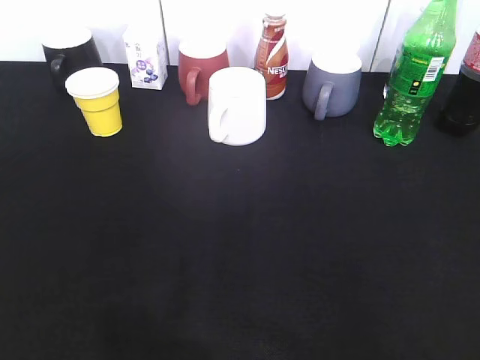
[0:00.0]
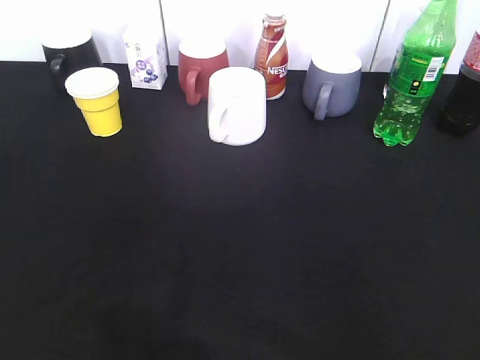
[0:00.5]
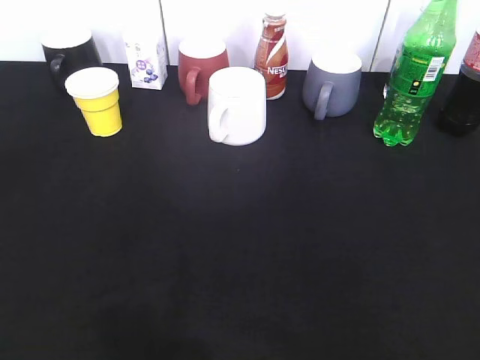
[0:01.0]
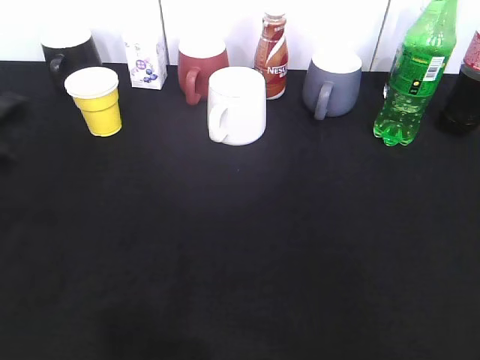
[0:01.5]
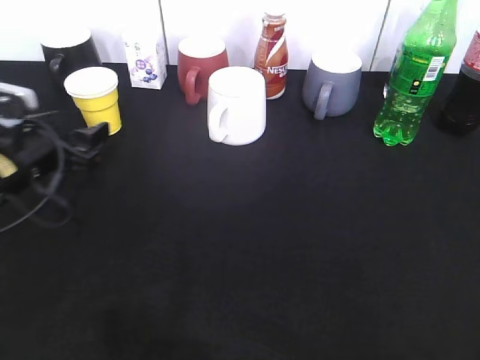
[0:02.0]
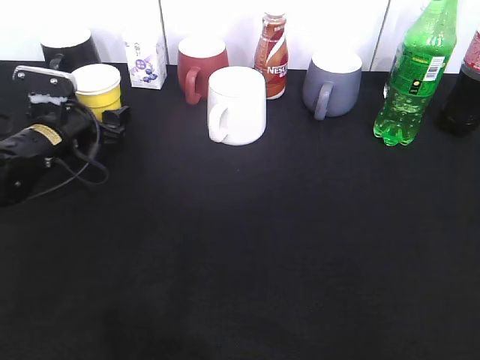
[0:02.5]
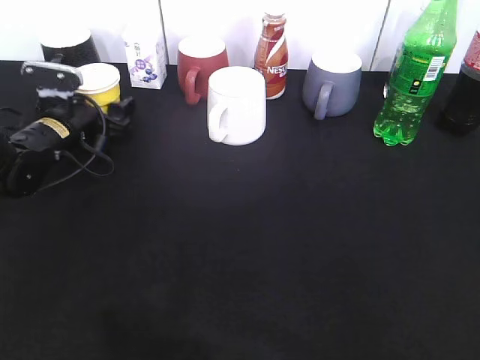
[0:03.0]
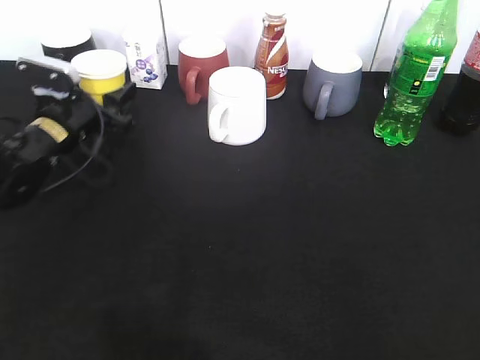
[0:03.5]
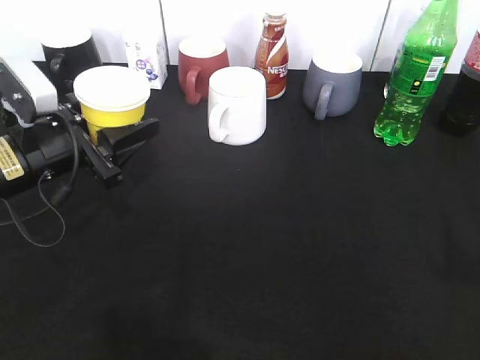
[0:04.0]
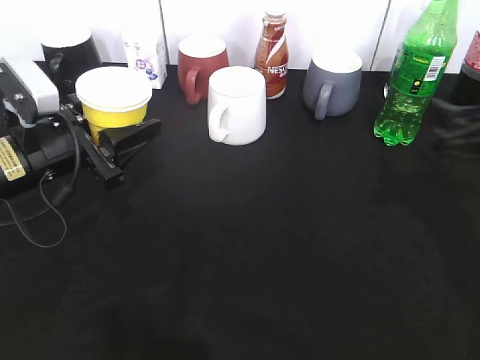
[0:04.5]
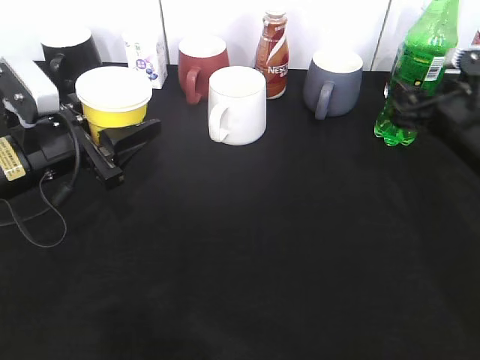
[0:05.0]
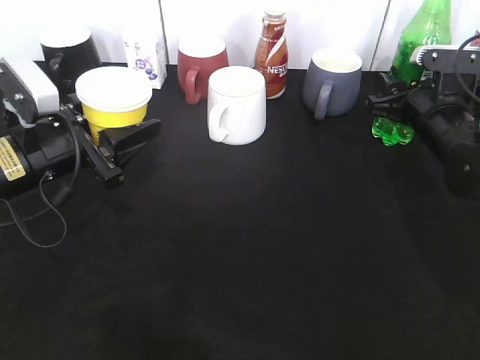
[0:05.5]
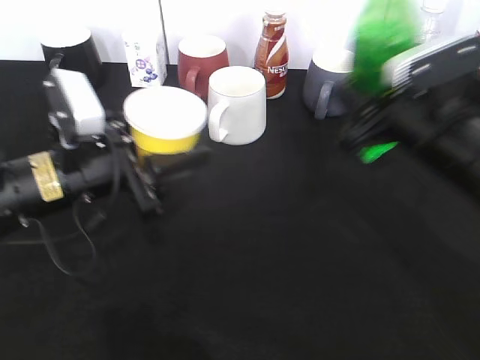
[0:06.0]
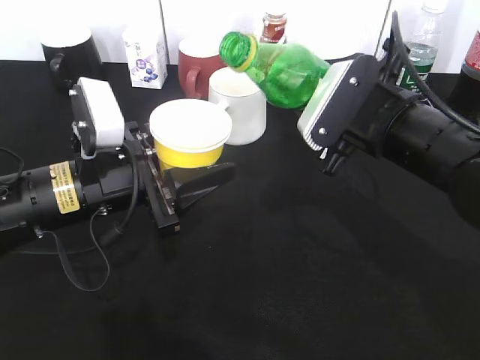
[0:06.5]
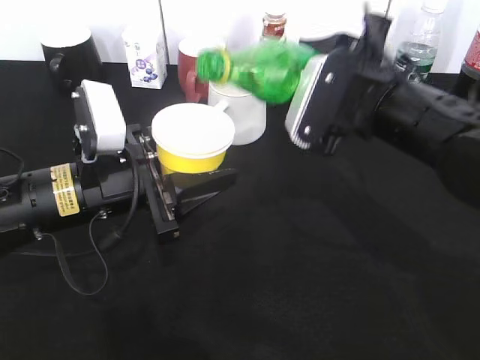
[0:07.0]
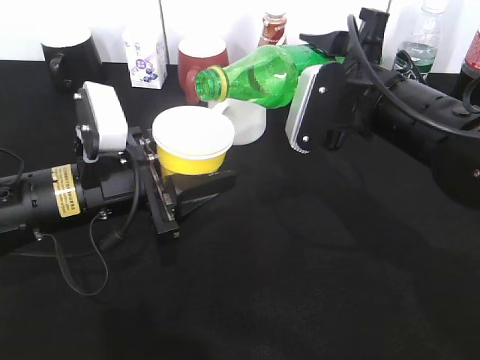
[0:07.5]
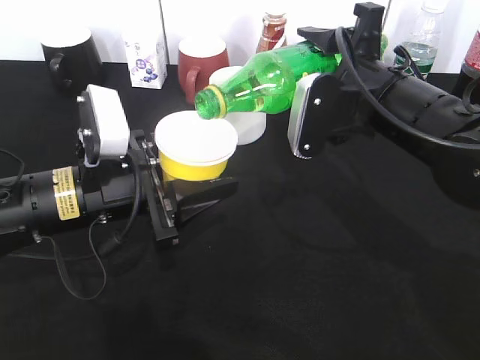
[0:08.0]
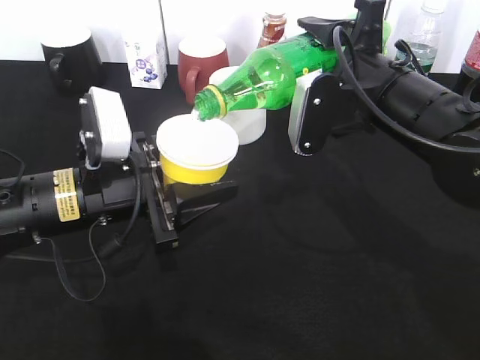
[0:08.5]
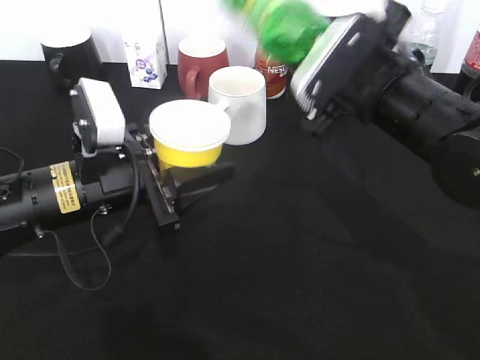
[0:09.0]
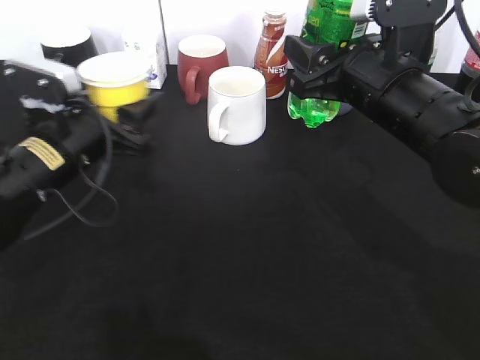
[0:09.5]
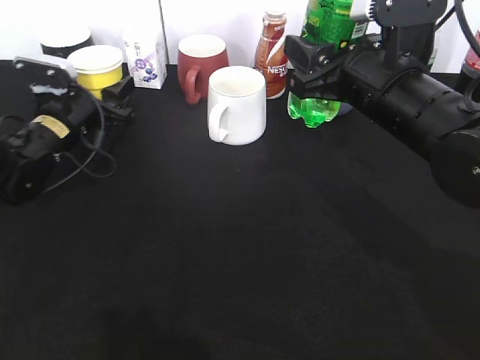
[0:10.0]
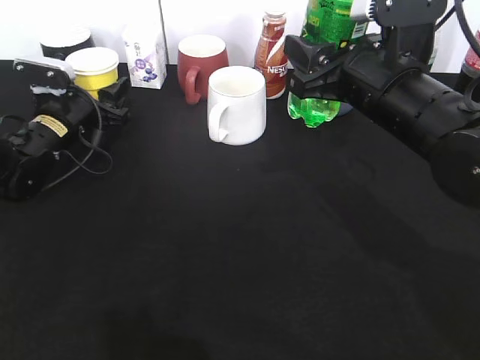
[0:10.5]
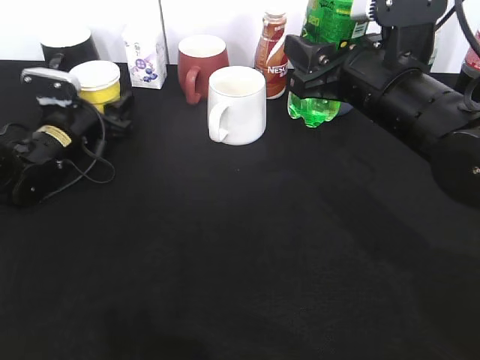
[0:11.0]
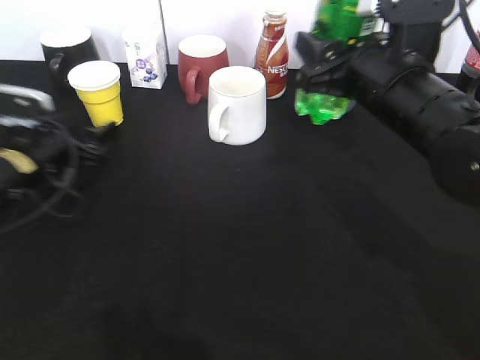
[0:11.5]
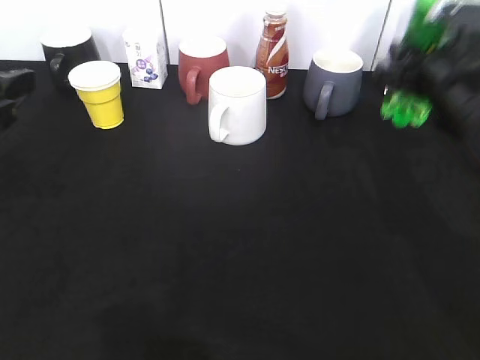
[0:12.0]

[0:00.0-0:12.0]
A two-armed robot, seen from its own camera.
Step, 0:00.0 to 0:03.0: Grasp the yellow paper cup with left gripper.
Step, 0:03.5 to 0:04.0: Lift the yellow paper cup with left gripper.
Step, 0:04.5 to 0:05.5: Grasp the bottle with sprite with right gripper.
Step, 0:06.0 to 0:08.5: Pour the sprite from bottle to cup with right gripper.
0:00.0 to 0:02.0: The left gripper shifts roughly 35 cm forward and downward.
0:02.0 to 0:04.0: The left gripper goes forward and returns, about 10 cm each way, and closes.
0:04.0 to 0:06.0: The right gripper heads forward, to the left and downward, covering some 25 cm, and closes; the left gripper shifts roughly 5 cm to the right.
0:06.0 to 0:08.0: The right gripper moves approximately 5 cm.
0:08.0 to 0:10.0: The left gripper is displaced forward and to the left by some 20 cm.
0:10.0 to 0:12.0: The left gripper shifts approximately 20 cm backward and upward, and opens its fingers; the right gripper goes some 10 cm to the right.

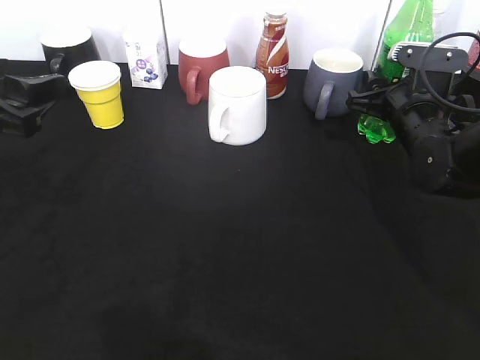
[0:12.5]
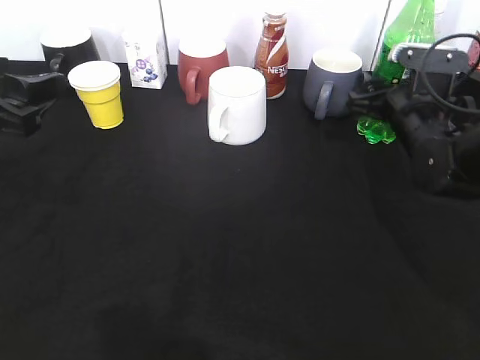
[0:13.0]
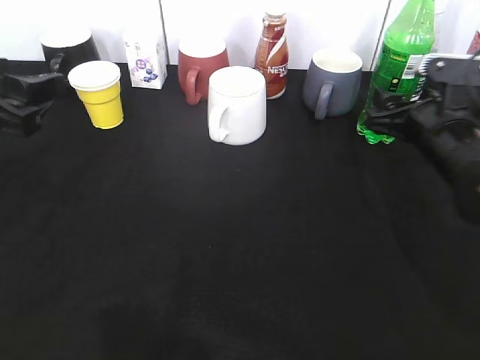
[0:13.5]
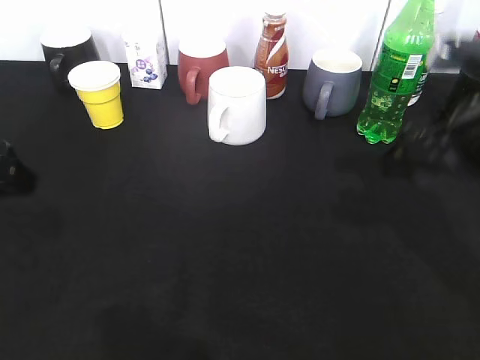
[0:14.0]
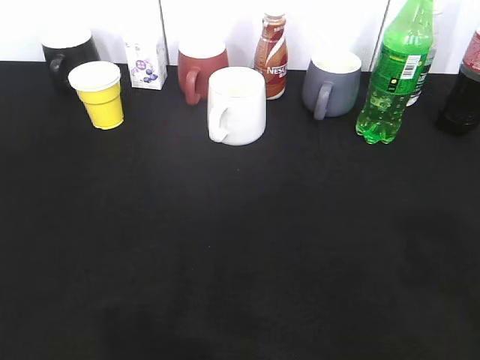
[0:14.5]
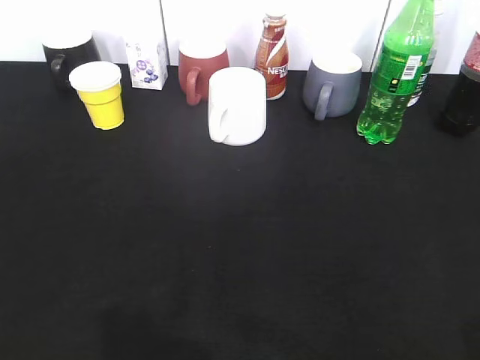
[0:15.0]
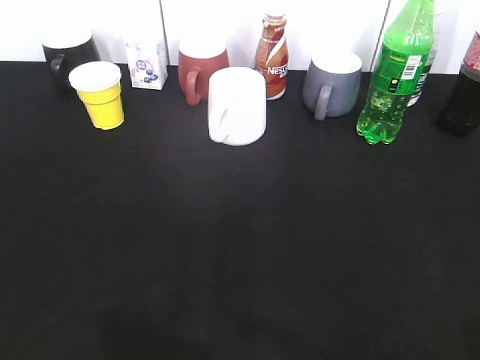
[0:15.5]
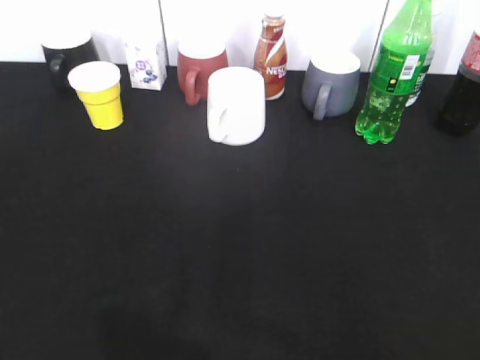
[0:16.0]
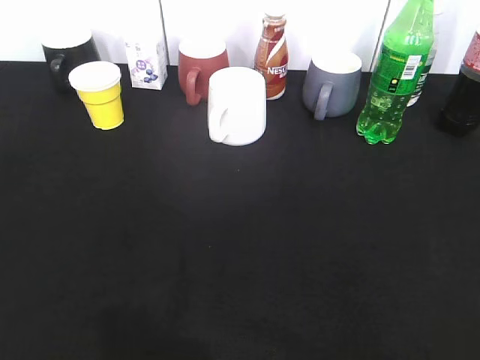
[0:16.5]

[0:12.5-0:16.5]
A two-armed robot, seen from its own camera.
0:12.5 to 0:14.5: The right gripper shifts some 35 cm backward and upward, and opens up; the left gripper heads backward and upward, covering approximately 20 cm.
